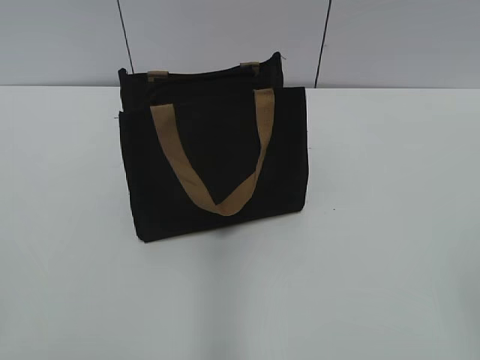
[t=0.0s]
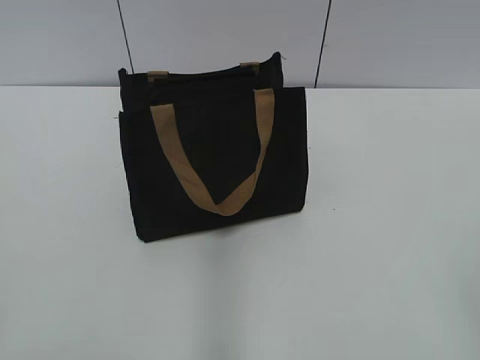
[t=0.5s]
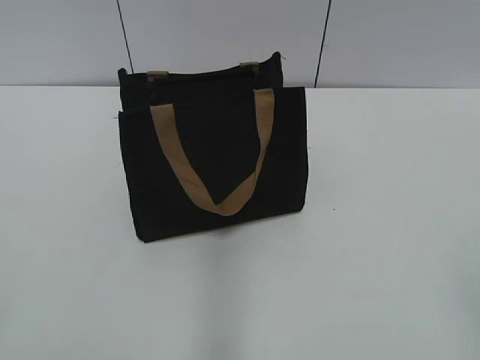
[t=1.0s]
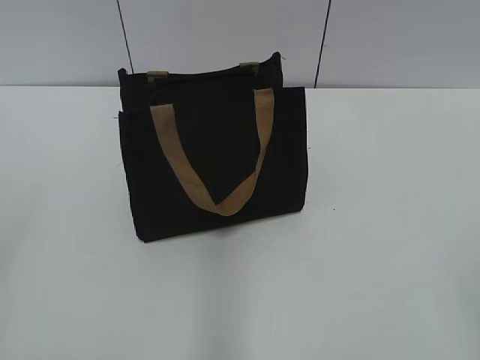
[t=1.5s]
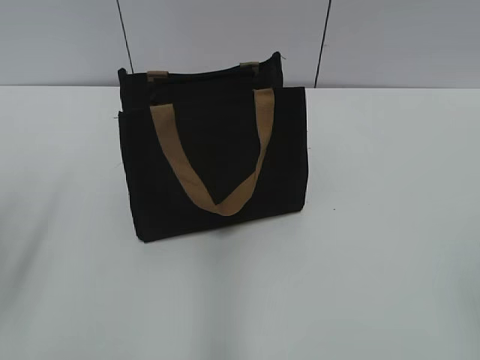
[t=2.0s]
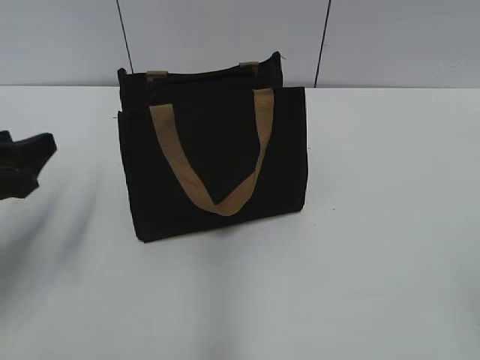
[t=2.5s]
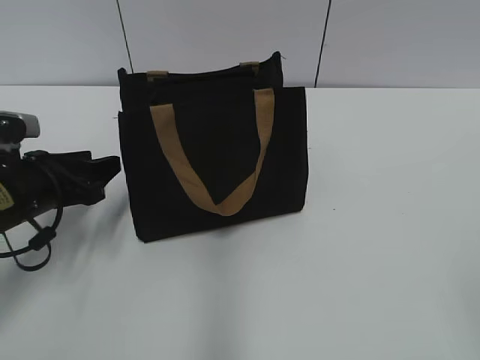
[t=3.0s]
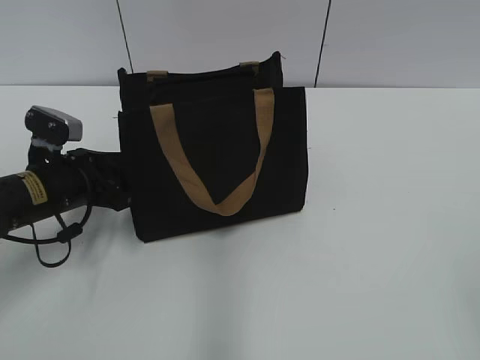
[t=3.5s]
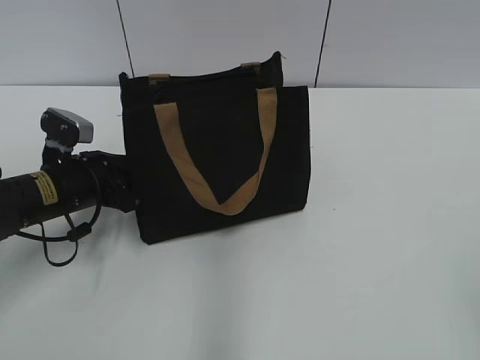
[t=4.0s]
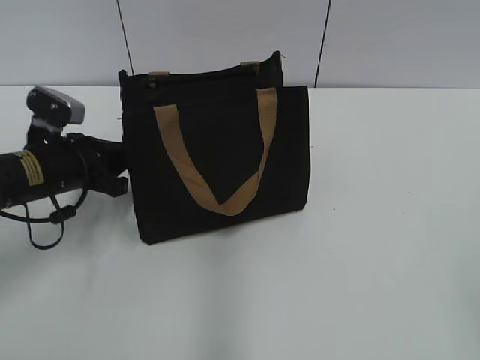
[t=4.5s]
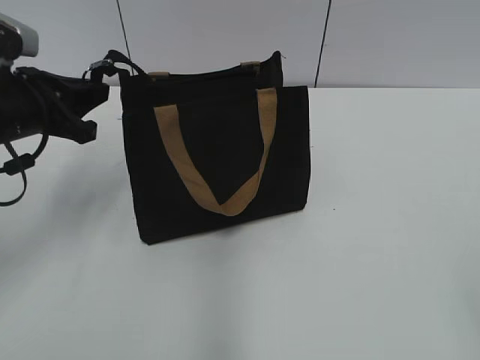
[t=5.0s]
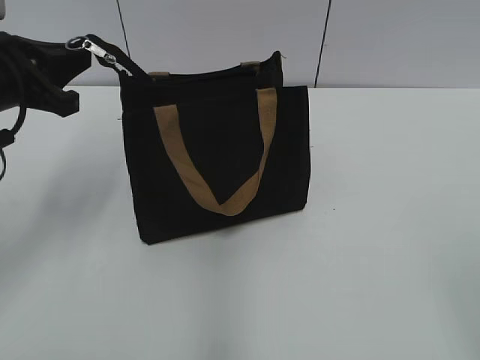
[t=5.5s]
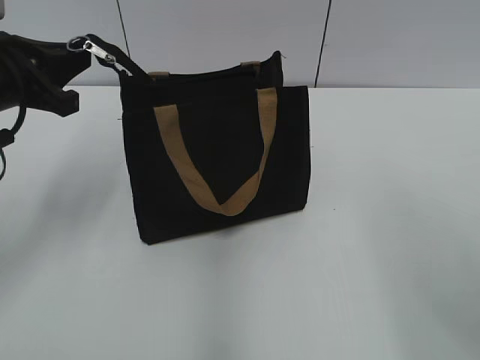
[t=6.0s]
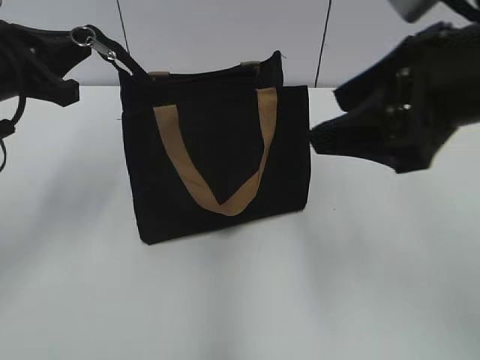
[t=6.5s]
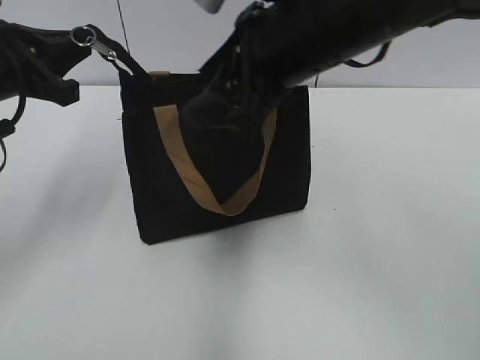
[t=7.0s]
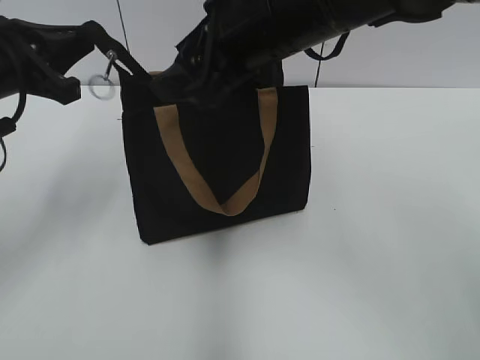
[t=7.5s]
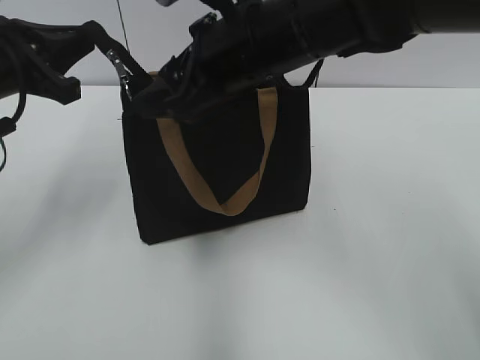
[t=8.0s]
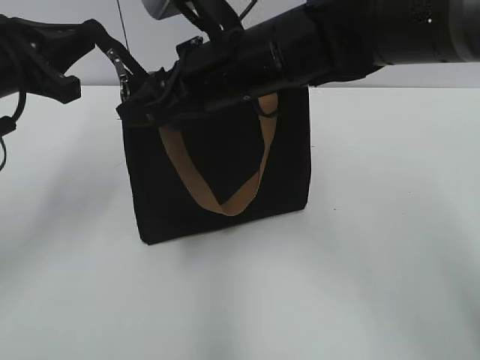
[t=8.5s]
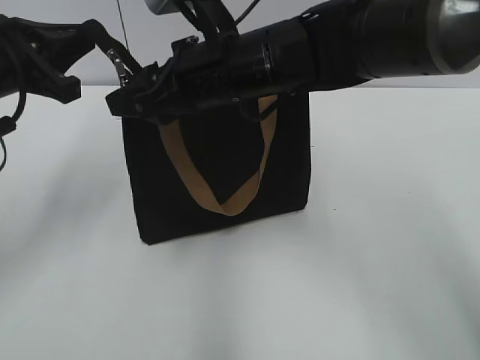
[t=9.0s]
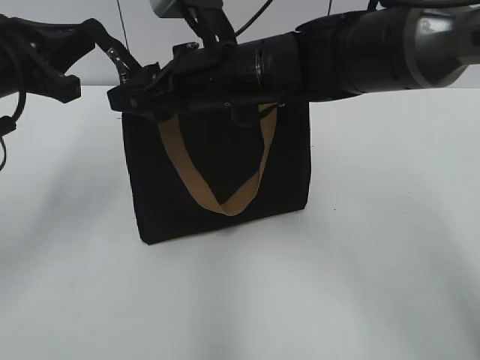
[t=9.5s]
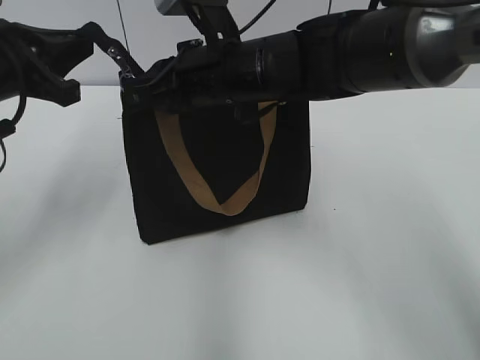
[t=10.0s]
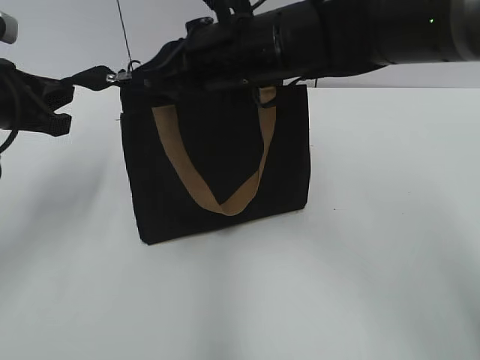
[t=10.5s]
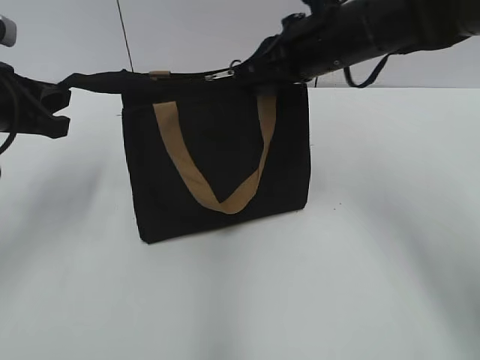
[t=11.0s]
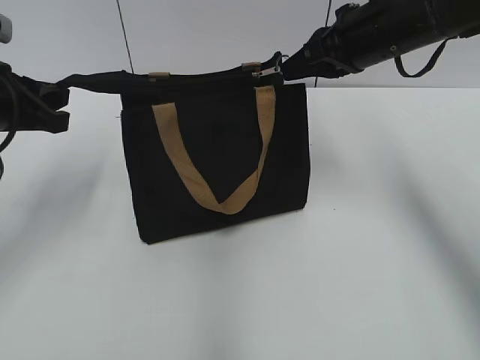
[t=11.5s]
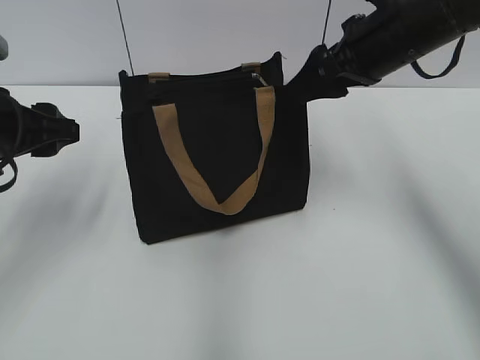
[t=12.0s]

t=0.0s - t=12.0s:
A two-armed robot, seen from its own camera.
Step, t=0.0s - t=11.5s: Zip up the bag with your right hand.
t=2.0s - t=4.0s: The left gripper goes roughly 25 cm forward, downward and to the right, and closes its fingers.
t=4.0s - t=6.0s: The right gripper goes roughly 10 cm forward; the left gripper goes approximately 15 cm upward, and closes its fingers.
t=6.0s - t=8.0s: The right gripper moves to the left and forward, some 30 cm.
t=8.0s - t=10.0s: The right gripper is displaced downward by about 5 cm, and closes.
t=10.0s - t=12.0s: The left gripper opens, while the right gripper heads to the right, covering roughly 15 cm, and opens.

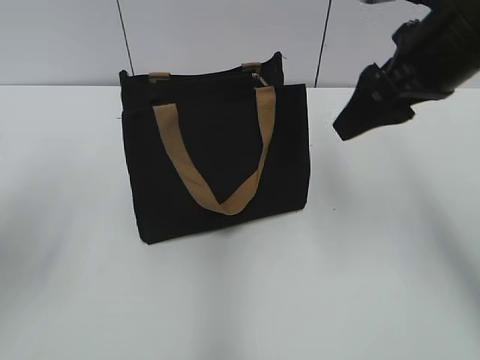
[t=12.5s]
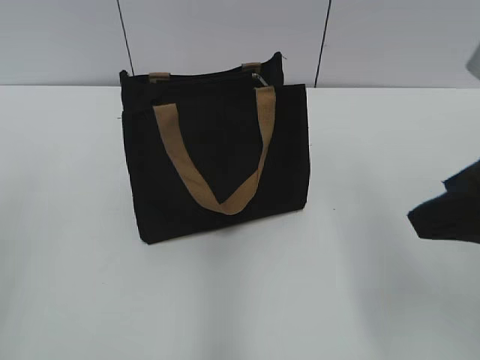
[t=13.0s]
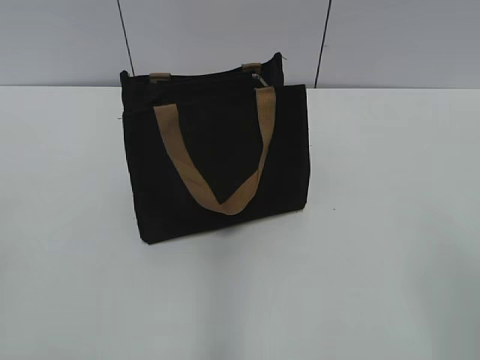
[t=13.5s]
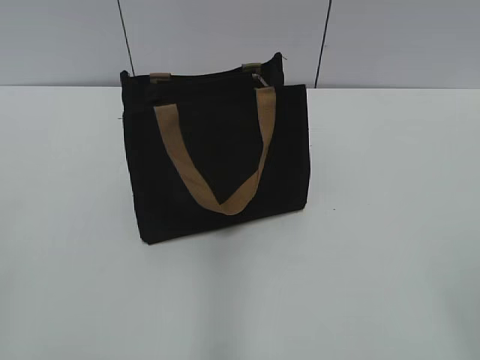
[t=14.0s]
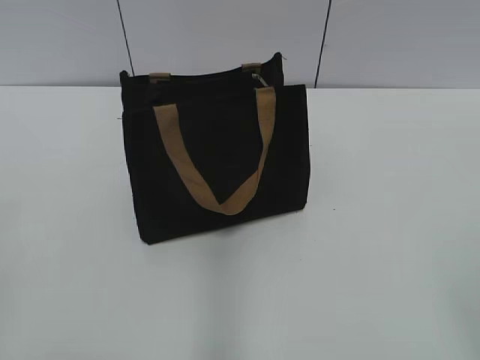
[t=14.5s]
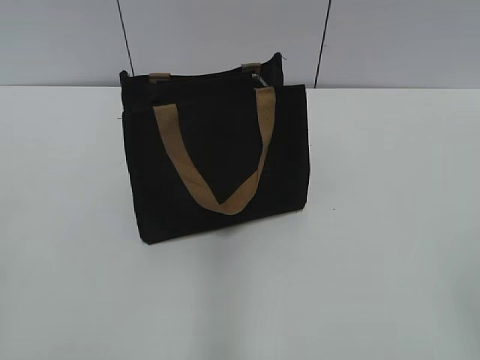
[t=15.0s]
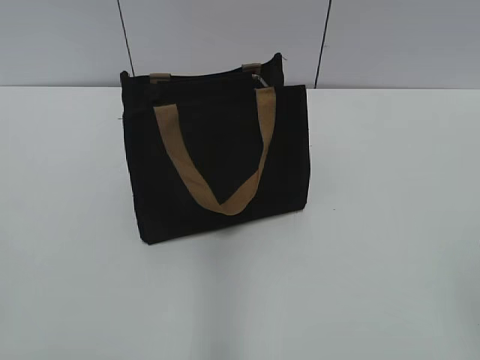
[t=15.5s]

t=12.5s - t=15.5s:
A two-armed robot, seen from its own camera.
t=12.5s - t=14.0s: The right gripper goes approximately 30 cm backward. The left gripper goes some 20 cm backward.

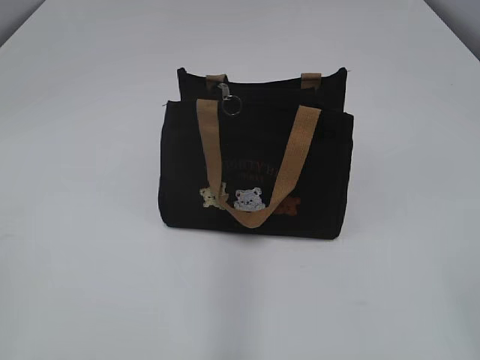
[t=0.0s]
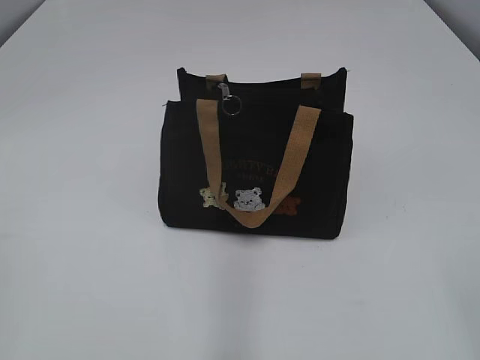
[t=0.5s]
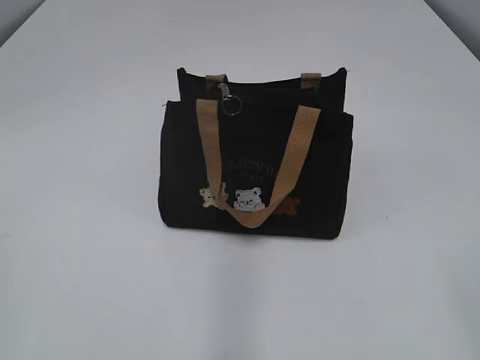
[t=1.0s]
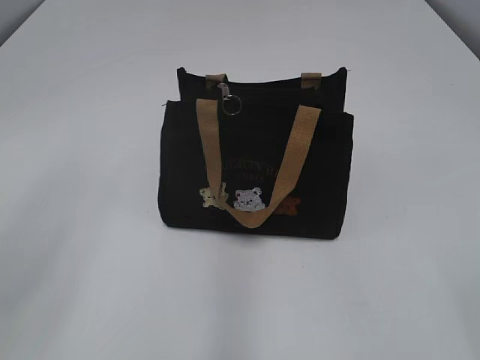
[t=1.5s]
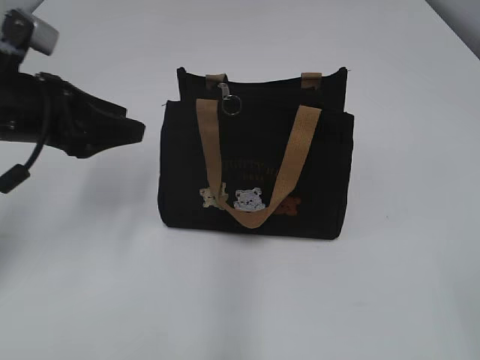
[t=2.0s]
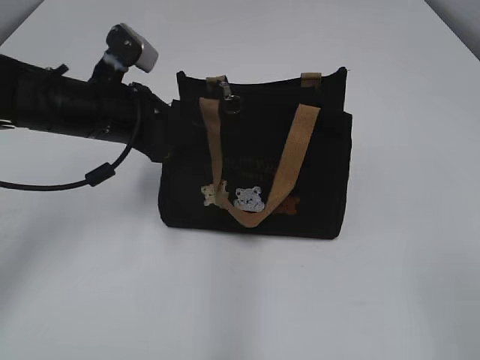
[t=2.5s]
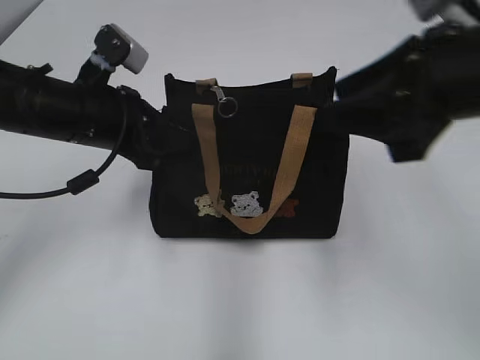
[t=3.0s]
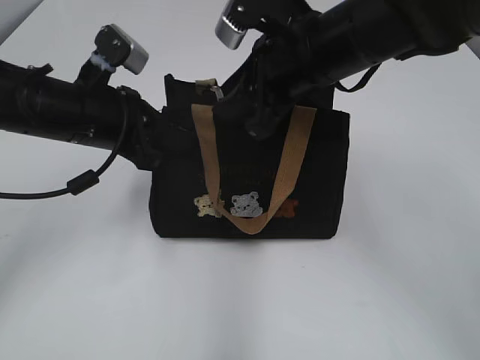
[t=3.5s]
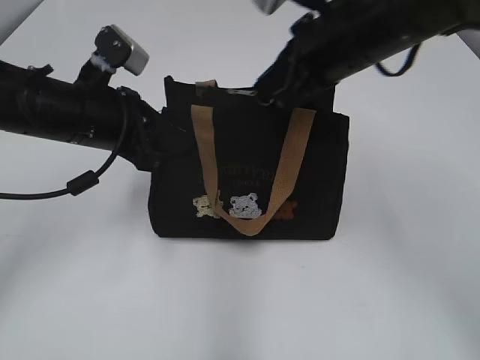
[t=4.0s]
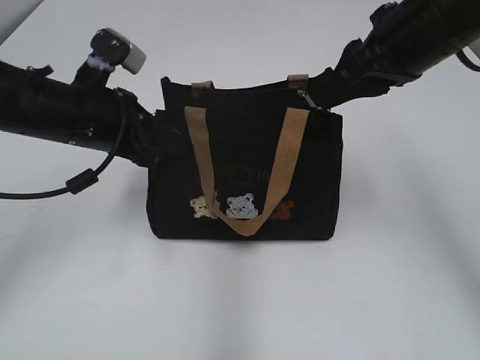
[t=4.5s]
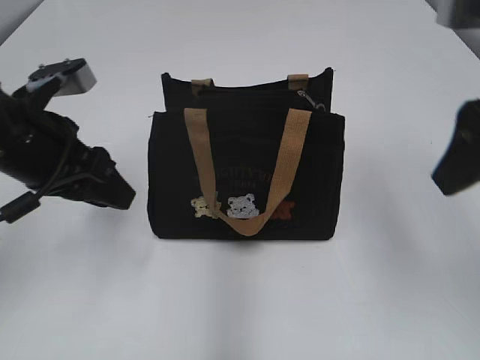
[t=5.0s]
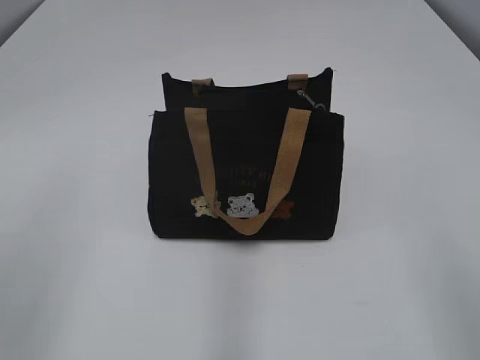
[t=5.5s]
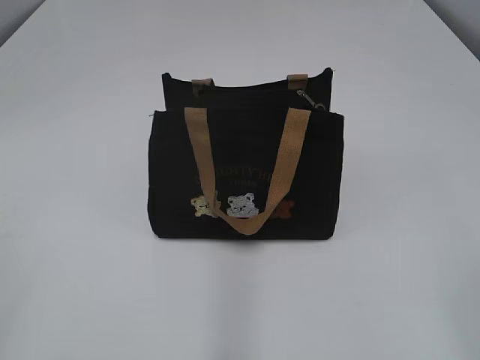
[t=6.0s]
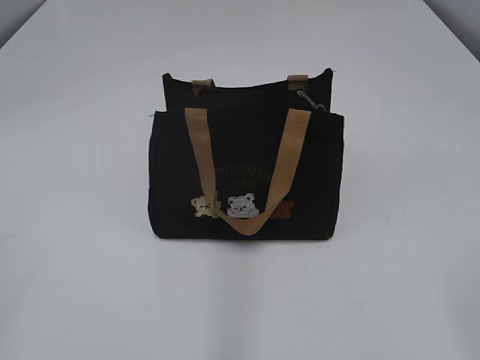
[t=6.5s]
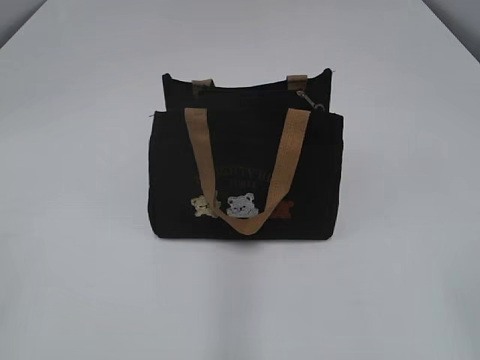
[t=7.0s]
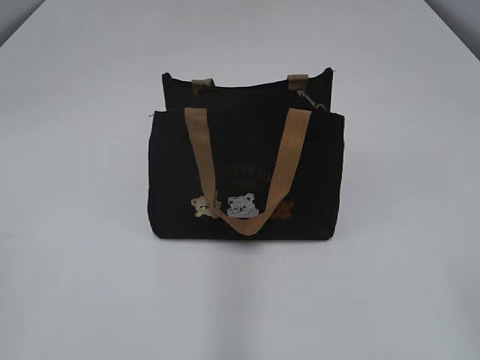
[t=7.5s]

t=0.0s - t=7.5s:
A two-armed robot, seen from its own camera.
Step, t=0.0s - t=4.5s: Pull open the zipper with your right hand.
t=2.0s - t=4.0s: The left gripper goes some 10 cm to the right, and closes its fingers; the right gripper shifts roughly 40 cm forward and to the left, and closes up.
t=4.0s - t=5.5s: The left gripper goes some 20 cm backward, upward and to the left, and opens its fingers, while the right gripper heads backward and to the right, covering approximately 30 cm, and opens its fingers.
t=5.5s - t=7.5s: The left gripper travels backward and to the left by approximately 20 cm.

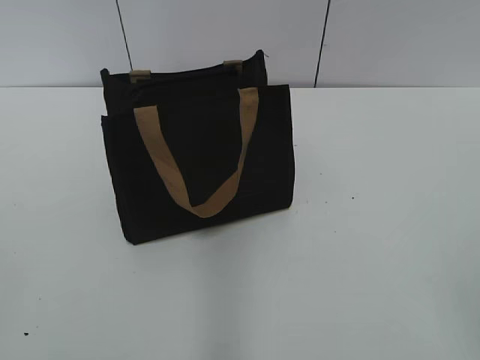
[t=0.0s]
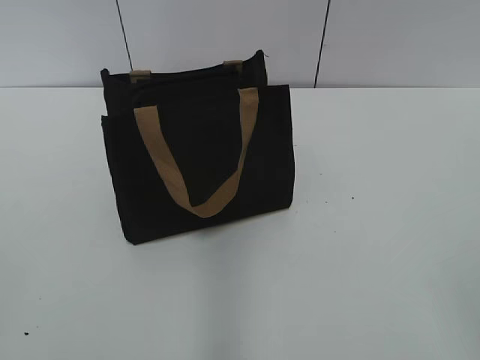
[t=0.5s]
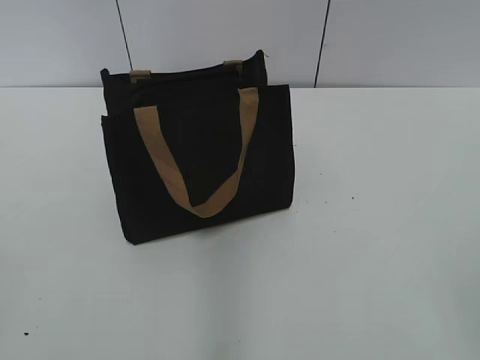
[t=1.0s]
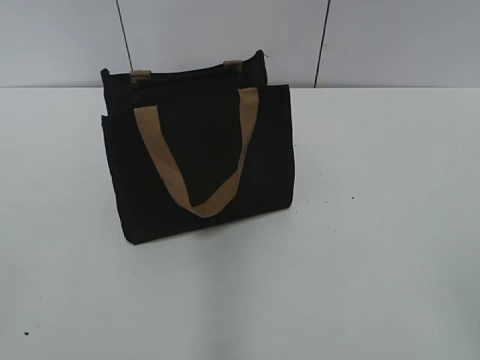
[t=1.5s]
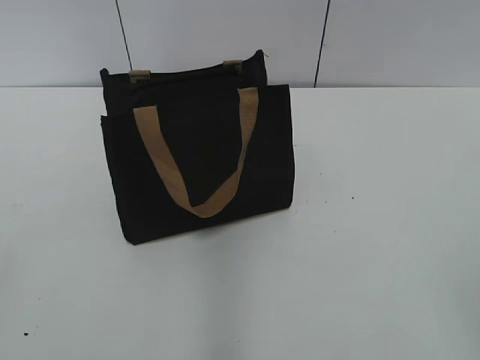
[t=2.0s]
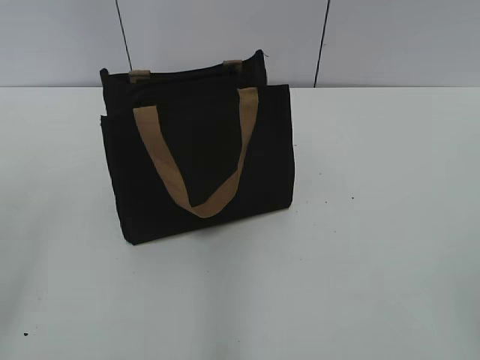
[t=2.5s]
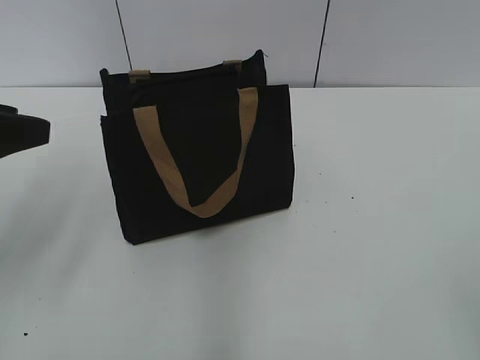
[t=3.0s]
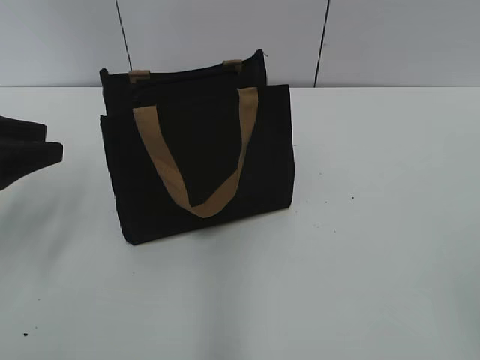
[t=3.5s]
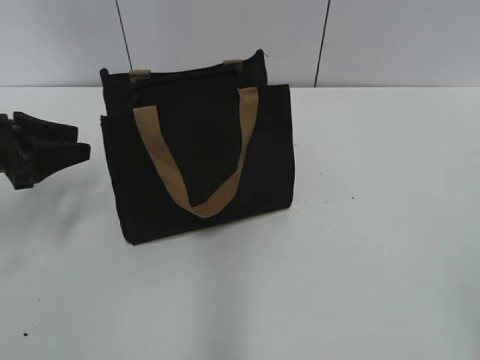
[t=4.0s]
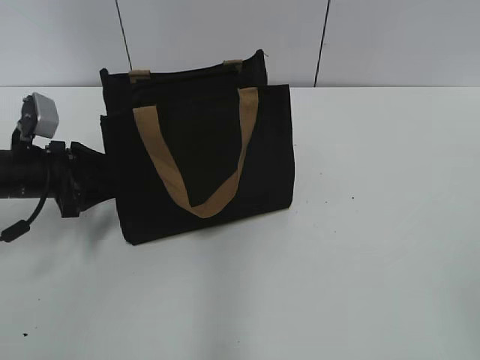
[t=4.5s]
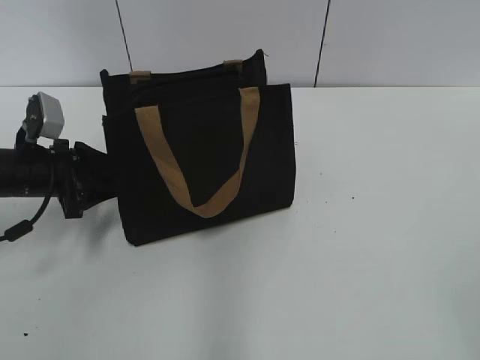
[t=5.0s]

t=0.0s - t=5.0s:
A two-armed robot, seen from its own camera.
t=2.5s - t=5.0s: The left gripper is displaced forward and downward by about 30 cm.
